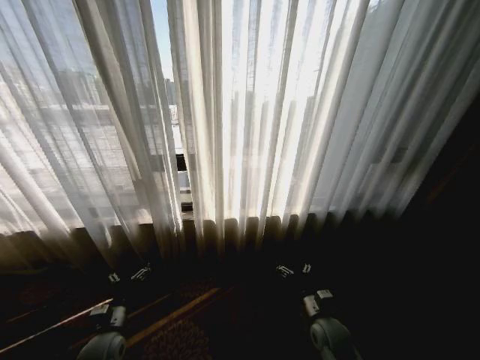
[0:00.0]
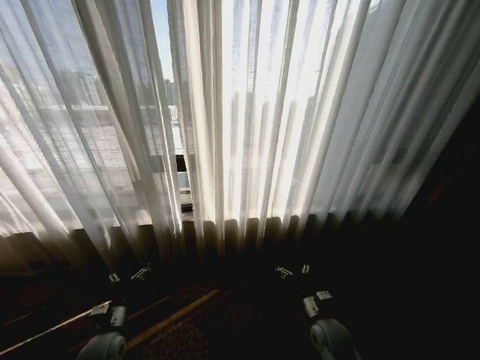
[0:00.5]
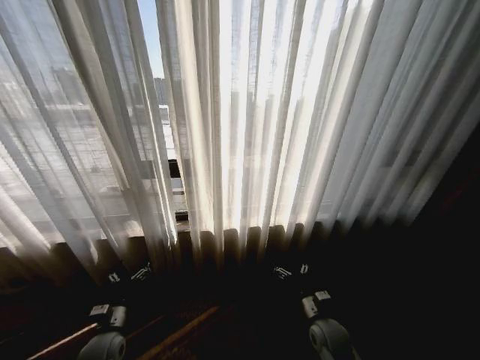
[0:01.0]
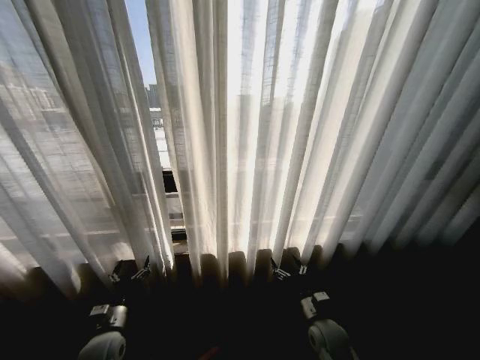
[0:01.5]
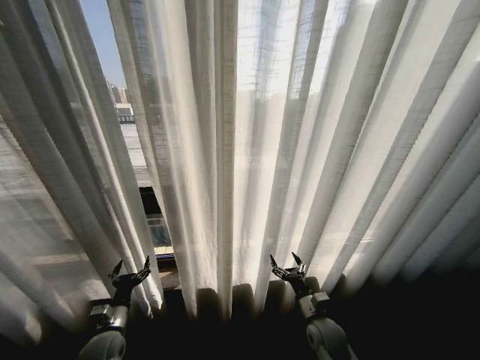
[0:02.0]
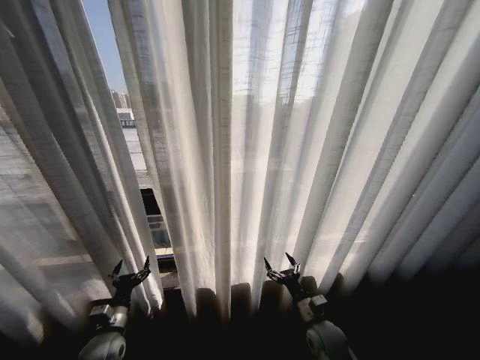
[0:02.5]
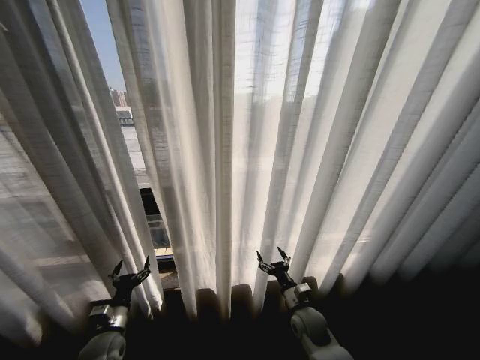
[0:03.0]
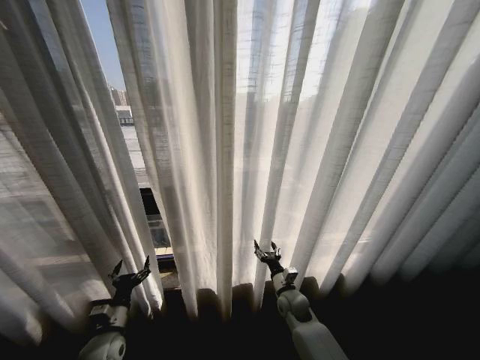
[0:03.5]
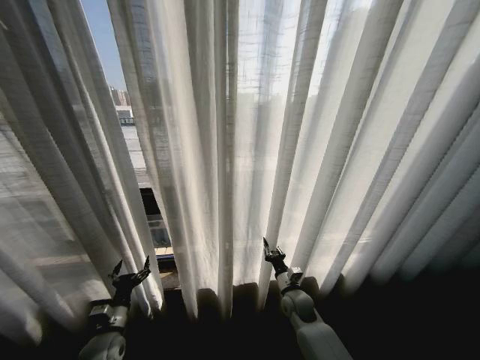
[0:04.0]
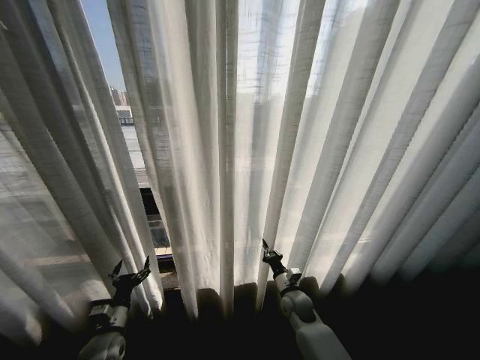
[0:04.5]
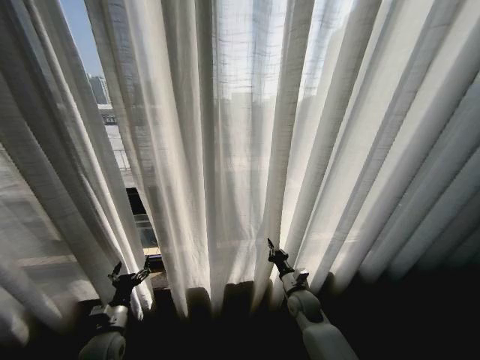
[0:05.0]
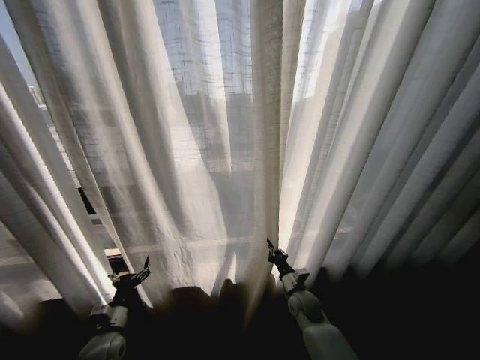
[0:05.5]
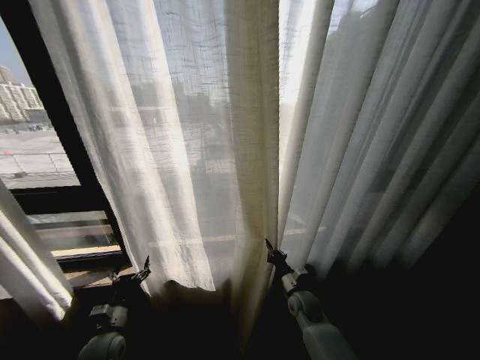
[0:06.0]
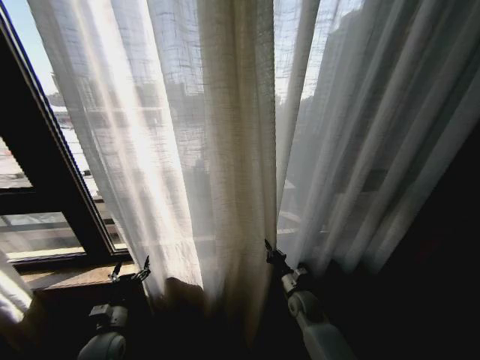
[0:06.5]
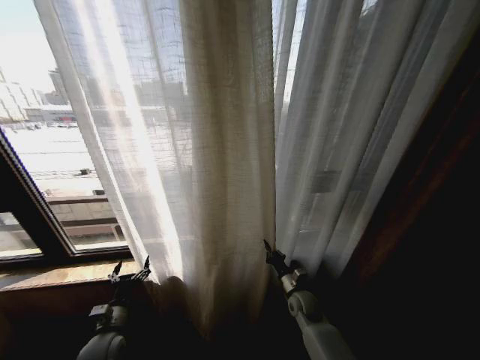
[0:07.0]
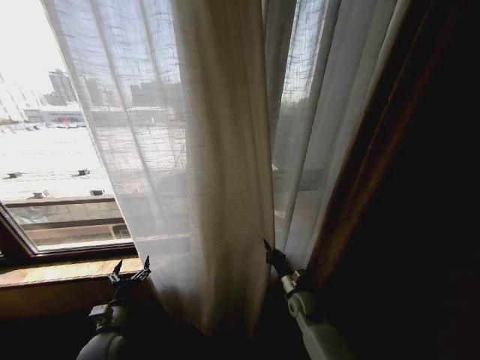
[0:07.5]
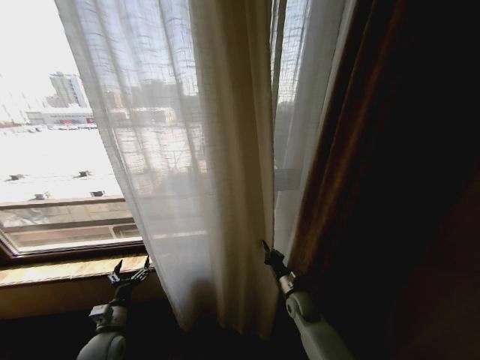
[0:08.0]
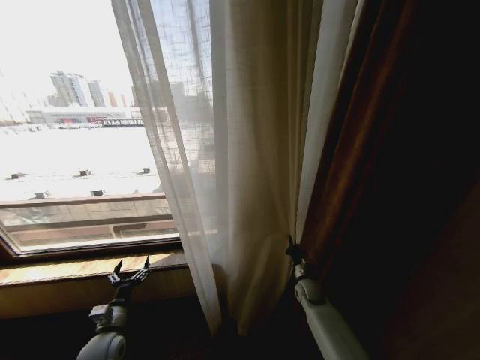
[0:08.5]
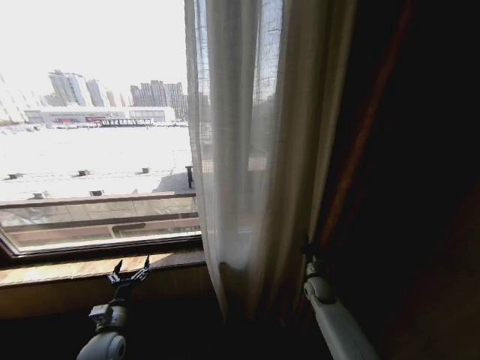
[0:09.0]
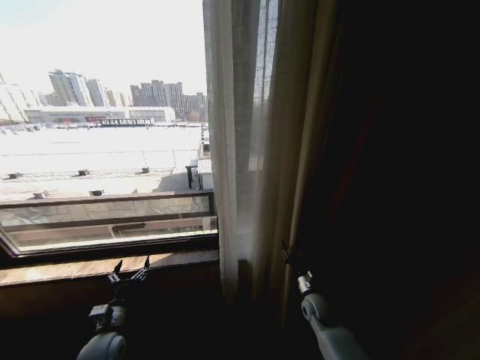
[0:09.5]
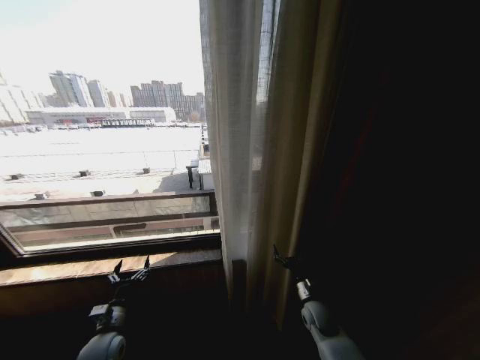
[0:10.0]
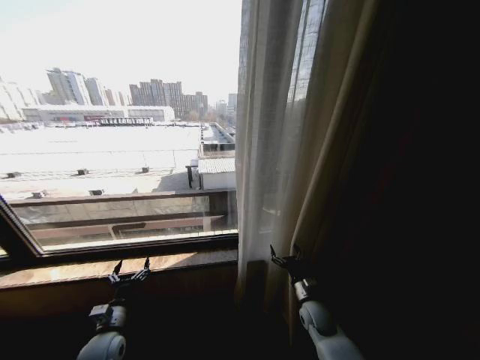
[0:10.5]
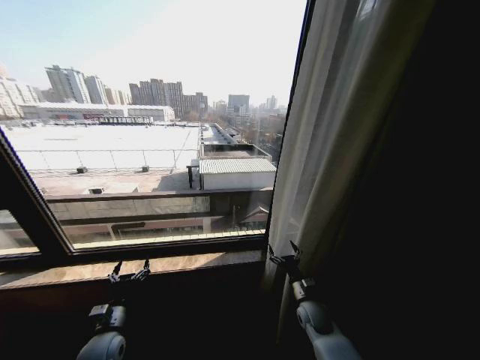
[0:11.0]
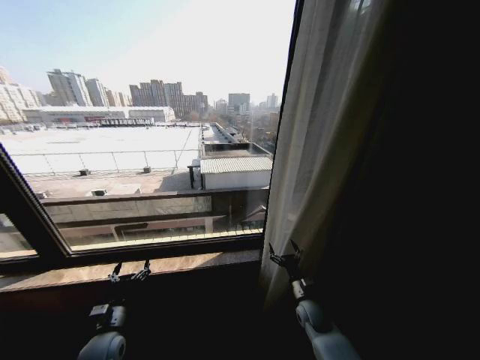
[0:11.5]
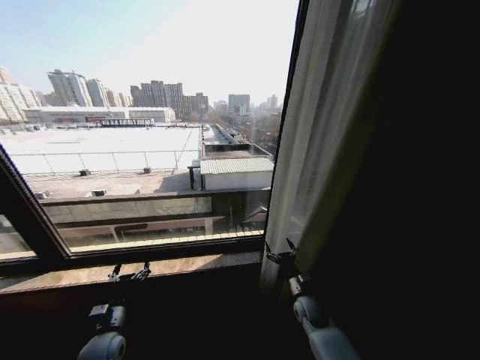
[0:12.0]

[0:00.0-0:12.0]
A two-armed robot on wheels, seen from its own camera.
Task of the whole recording: Open the curtains by pulling them apart, changing their state from closed to fully open.
0:02.0 to 0:04.0: The right gripper is displaced forward by roughly 10 cm, and closes.
0:08.0 to 0:10.0: The right gripper opens its fingers.

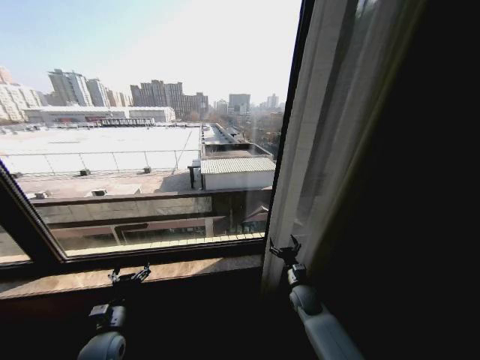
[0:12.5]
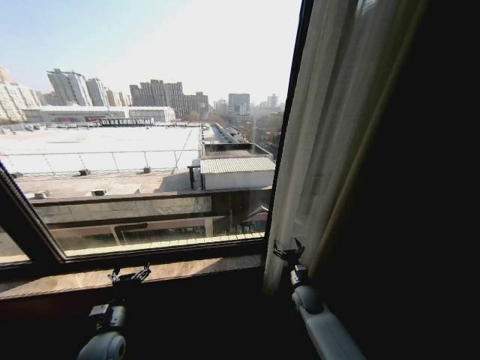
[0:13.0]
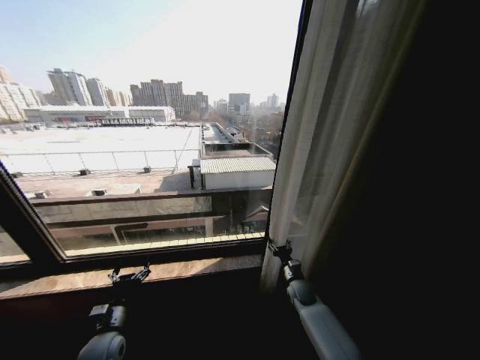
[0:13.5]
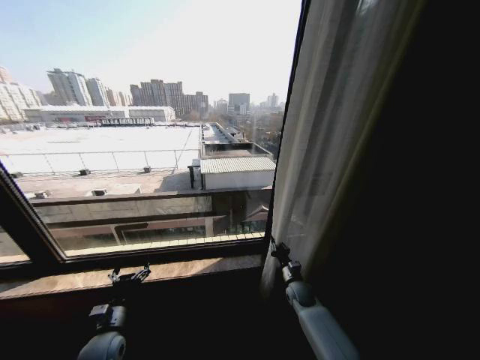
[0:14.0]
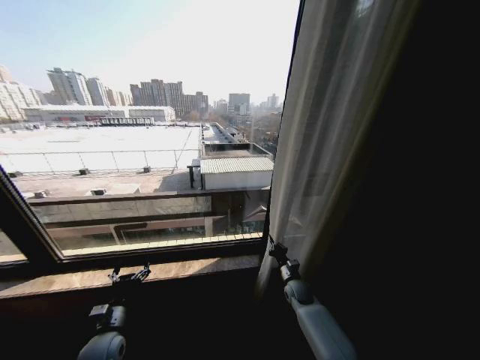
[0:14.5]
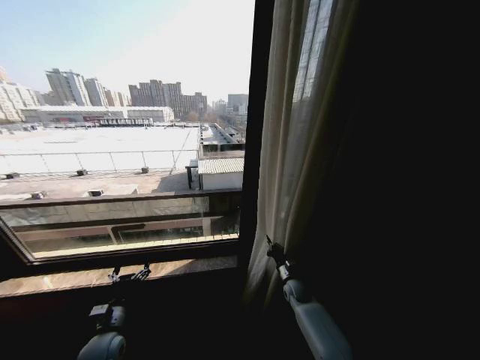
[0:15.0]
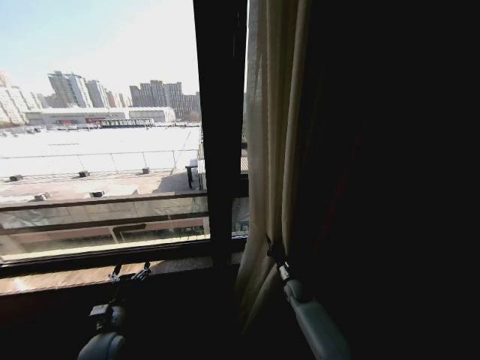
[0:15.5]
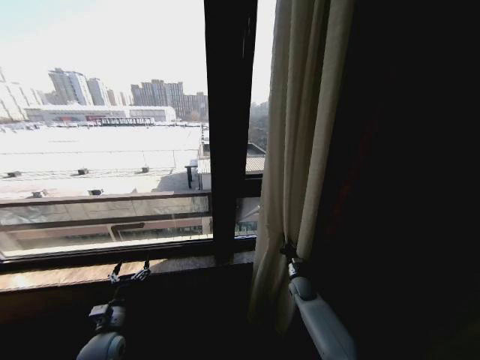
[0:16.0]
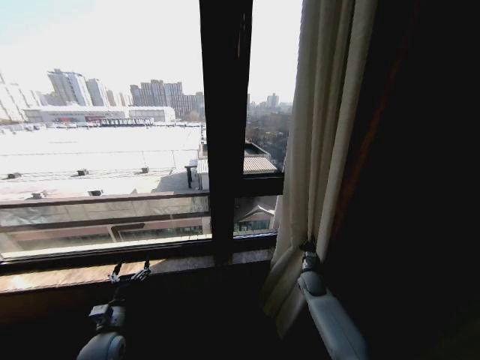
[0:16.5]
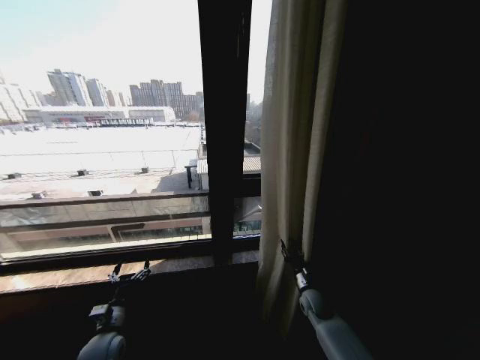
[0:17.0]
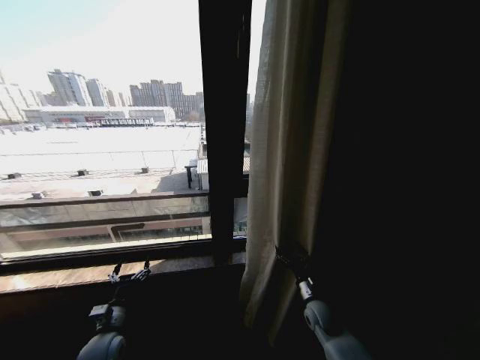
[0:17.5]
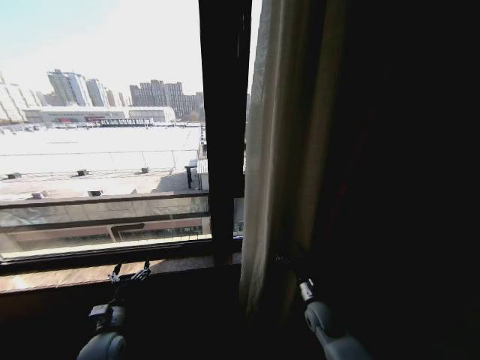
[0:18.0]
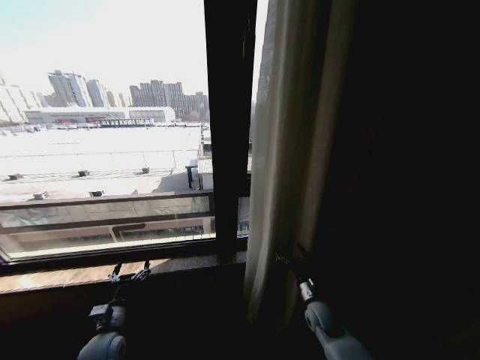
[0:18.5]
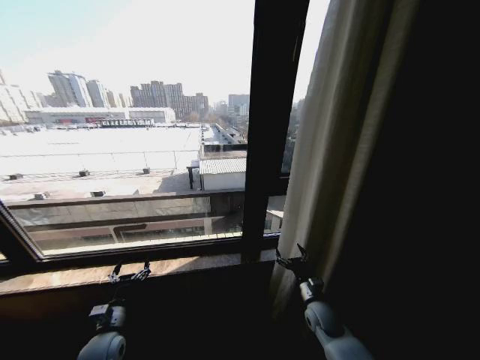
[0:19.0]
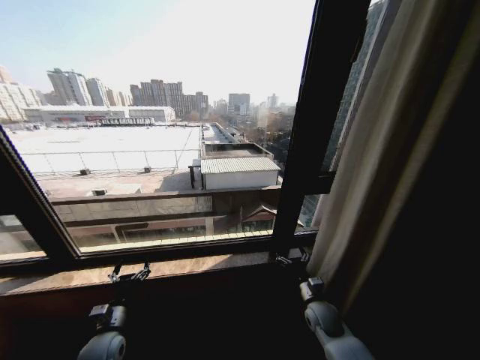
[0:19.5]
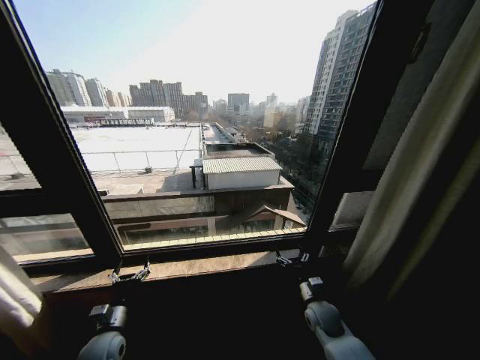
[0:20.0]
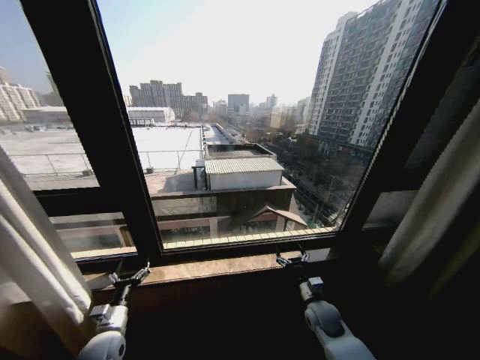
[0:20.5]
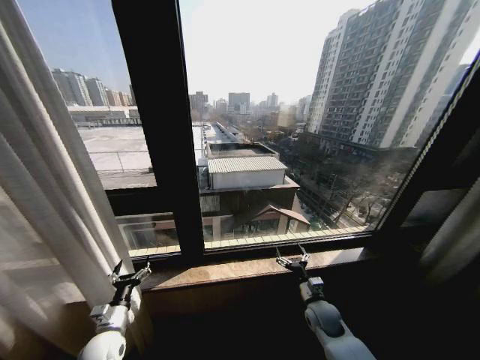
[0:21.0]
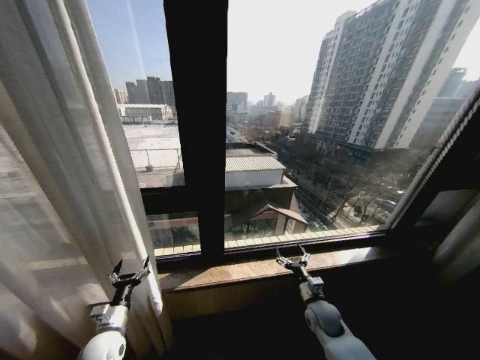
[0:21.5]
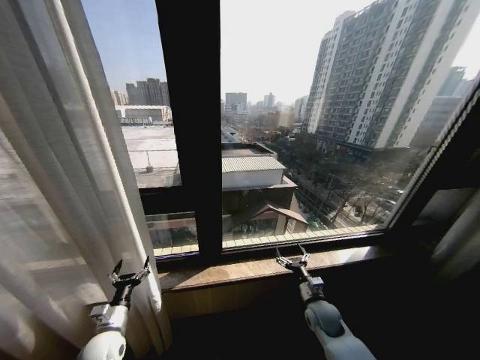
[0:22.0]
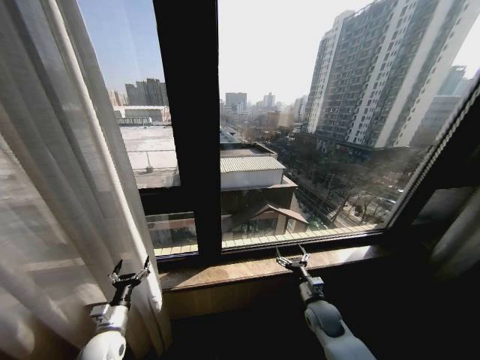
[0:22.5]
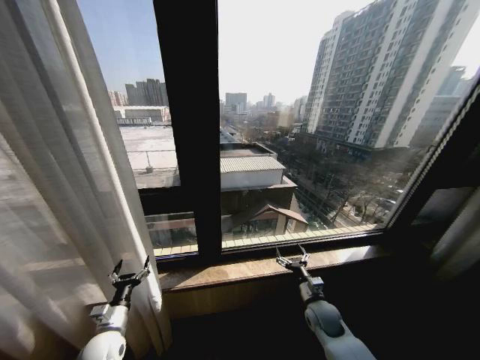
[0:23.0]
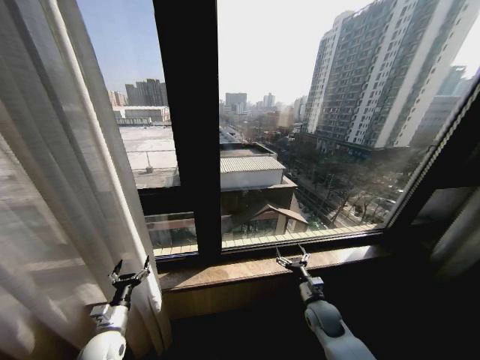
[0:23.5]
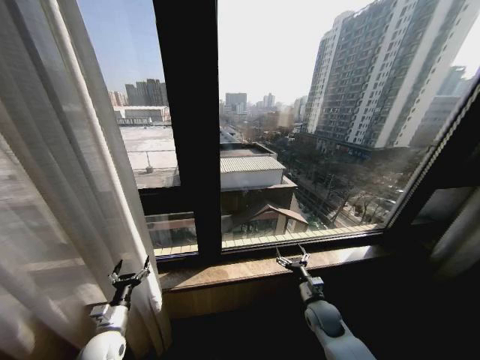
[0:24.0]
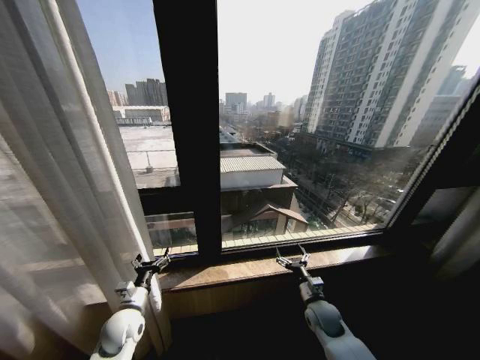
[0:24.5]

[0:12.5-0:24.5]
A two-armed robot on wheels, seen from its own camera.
Task of the whole recording: Open the curtains by pulling them apart, changing their state from closed to fully open.
0:12.5 to 0:14.5: The right gripper closes its fingers.
0:14.5 to 0:16.5: The right gripper shifts approximately 5 cm to the right.
0:16.5 to 0:18.5: The right gripper goes about 10 cm backward, and opens up.
0:22.5 to 0:24.5: The left gripper travels to the right by roughly 5 cm.

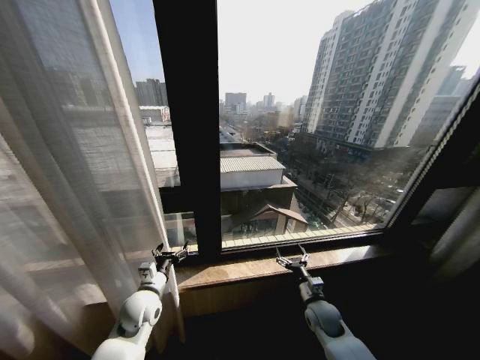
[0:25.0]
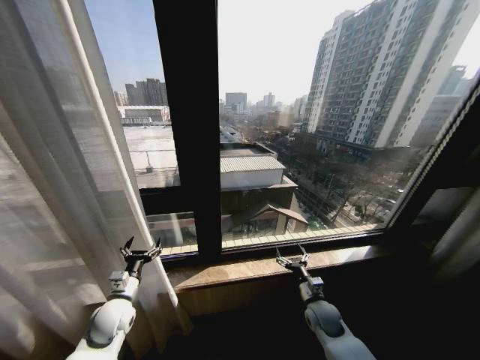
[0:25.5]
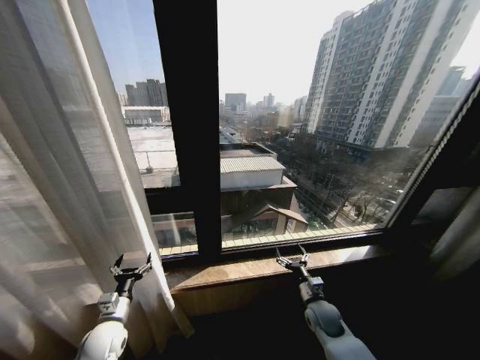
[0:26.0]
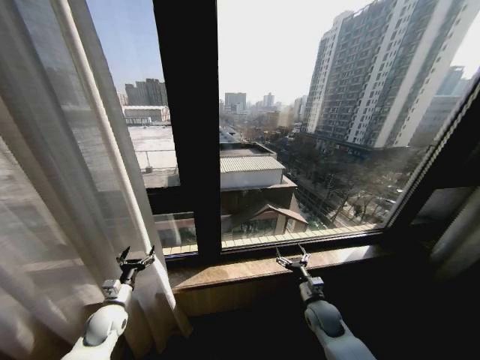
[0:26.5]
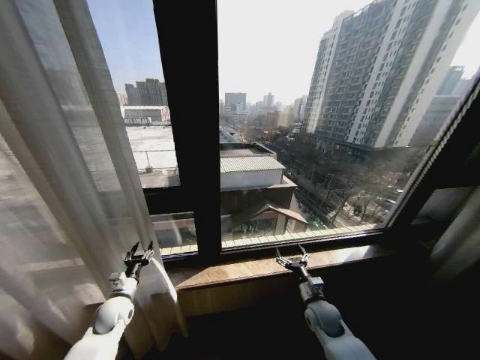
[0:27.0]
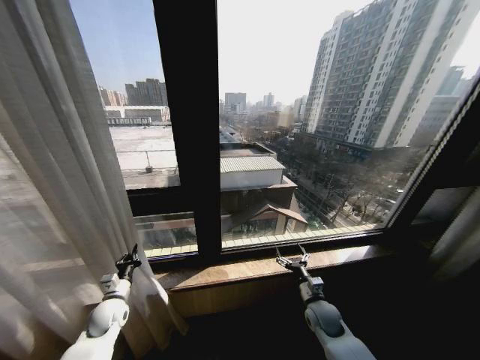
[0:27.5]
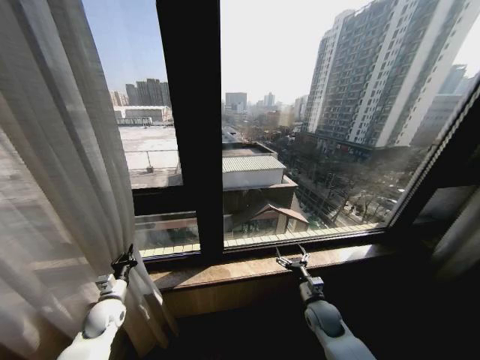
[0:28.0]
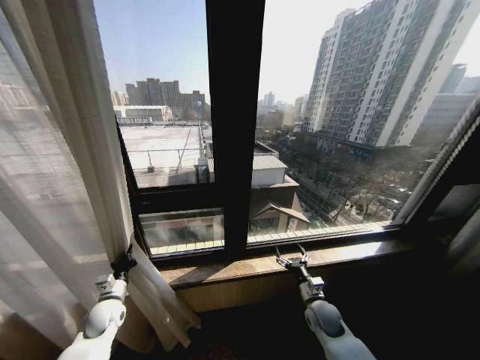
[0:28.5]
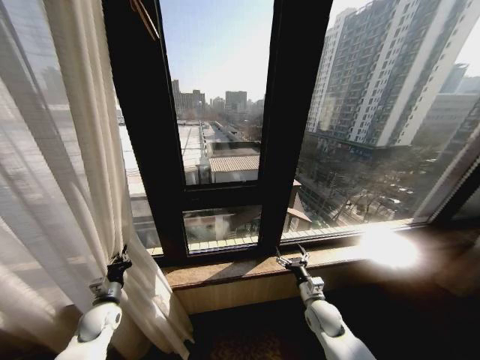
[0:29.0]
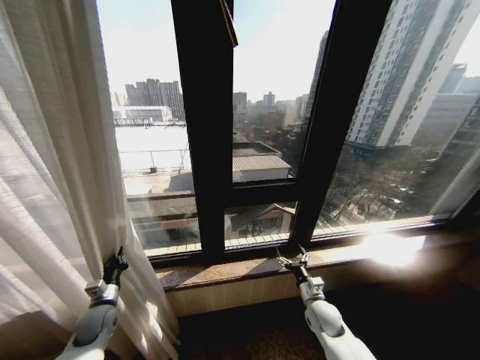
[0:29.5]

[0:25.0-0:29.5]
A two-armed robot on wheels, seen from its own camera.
Task of the whole recording: Open the curtains by pulling them apart, changing their state from closed to fully open.
0:25.0 to 0:27.0: The left gripper is displaced to the left and downward by some 15 cm.
0:27.0 to 0:29.5: The left gripper closes up.
